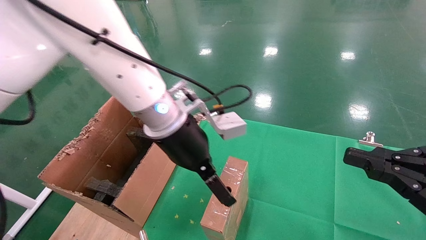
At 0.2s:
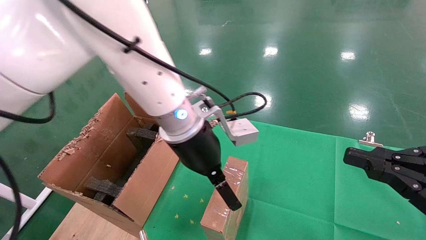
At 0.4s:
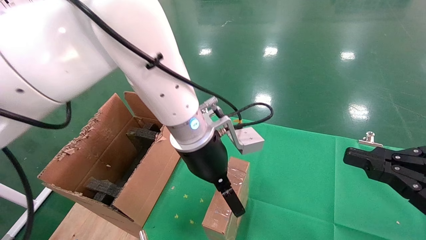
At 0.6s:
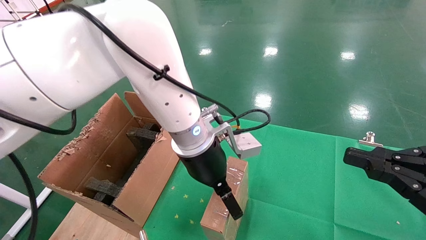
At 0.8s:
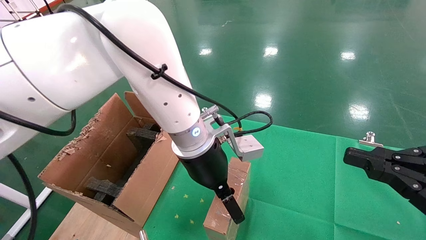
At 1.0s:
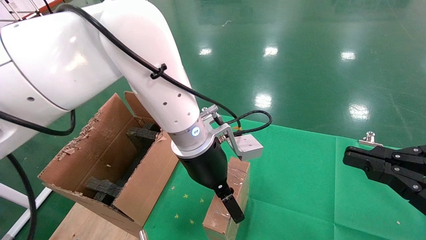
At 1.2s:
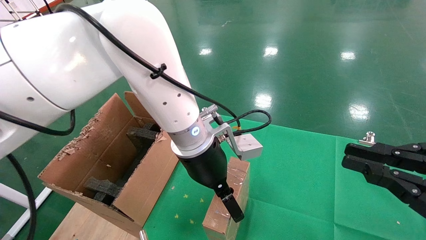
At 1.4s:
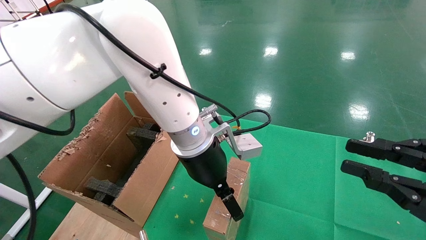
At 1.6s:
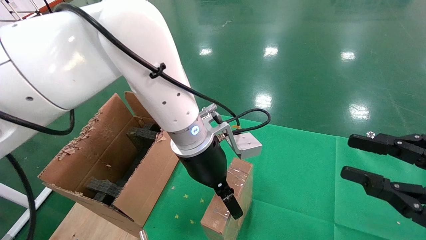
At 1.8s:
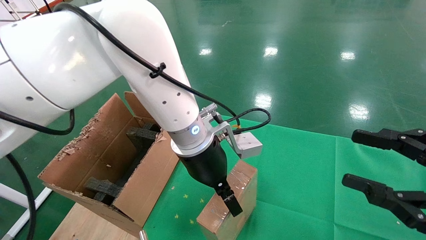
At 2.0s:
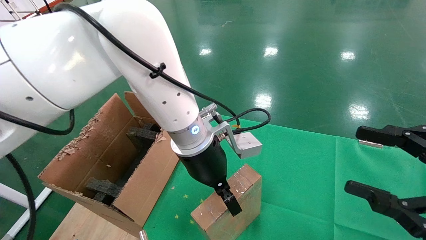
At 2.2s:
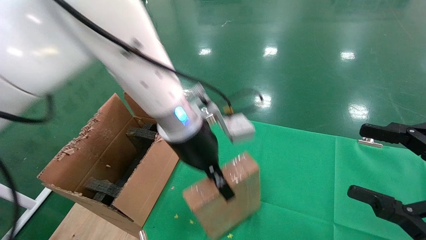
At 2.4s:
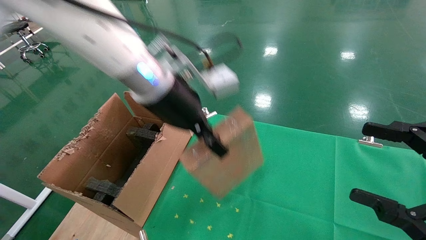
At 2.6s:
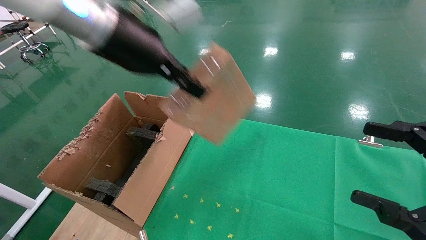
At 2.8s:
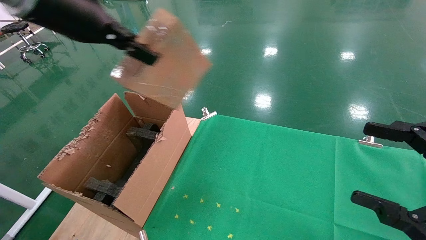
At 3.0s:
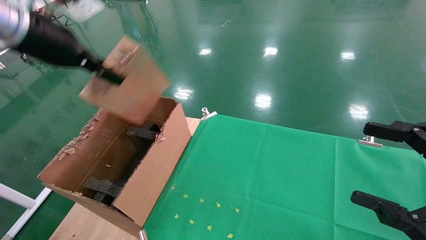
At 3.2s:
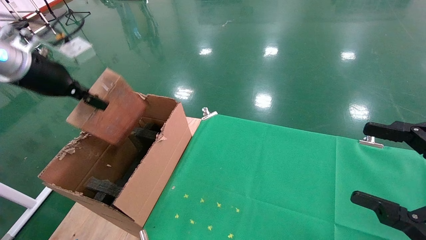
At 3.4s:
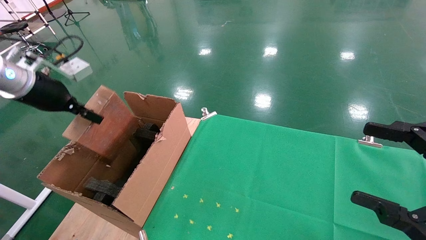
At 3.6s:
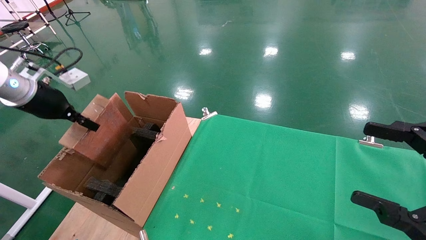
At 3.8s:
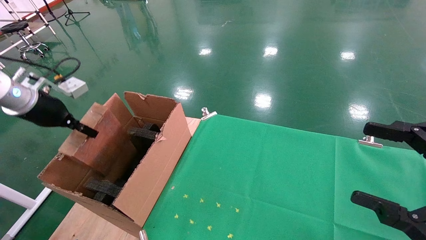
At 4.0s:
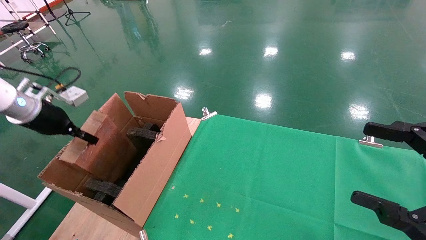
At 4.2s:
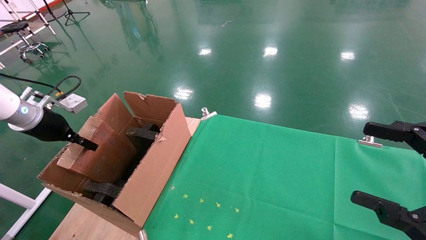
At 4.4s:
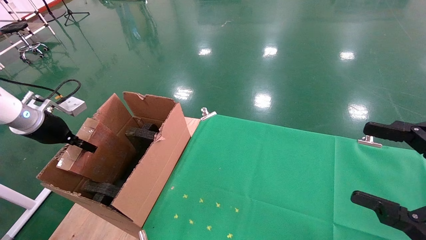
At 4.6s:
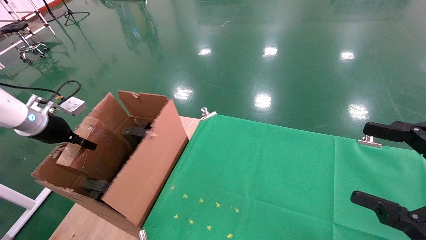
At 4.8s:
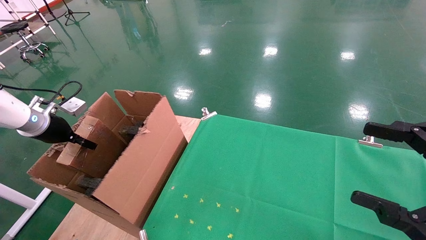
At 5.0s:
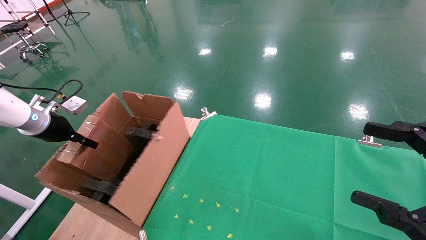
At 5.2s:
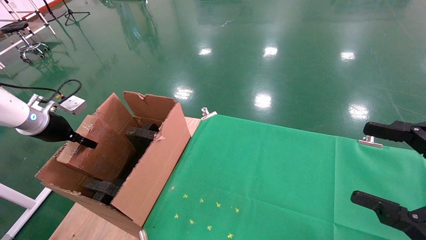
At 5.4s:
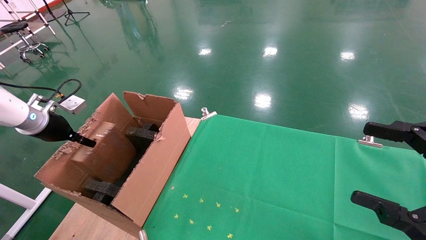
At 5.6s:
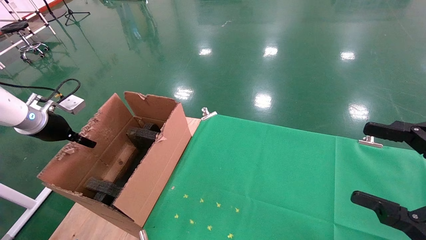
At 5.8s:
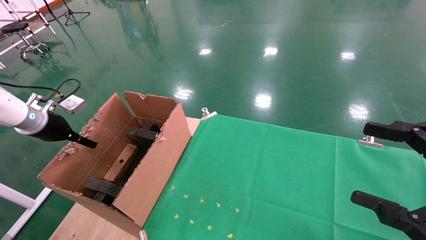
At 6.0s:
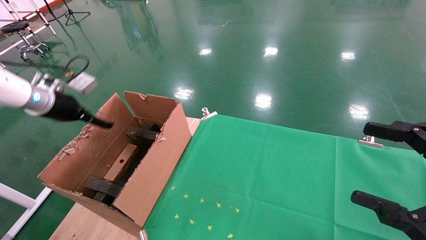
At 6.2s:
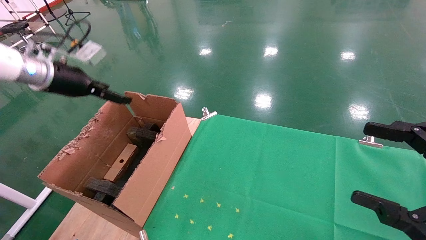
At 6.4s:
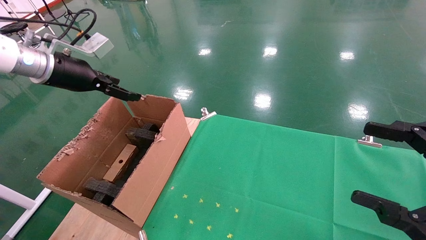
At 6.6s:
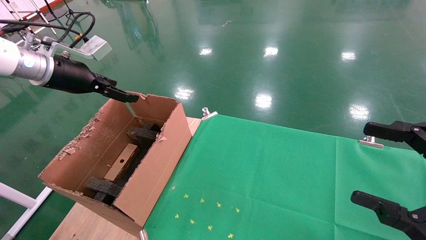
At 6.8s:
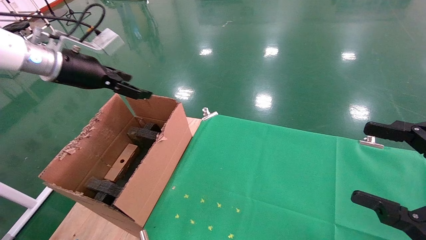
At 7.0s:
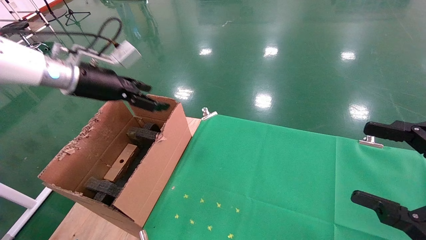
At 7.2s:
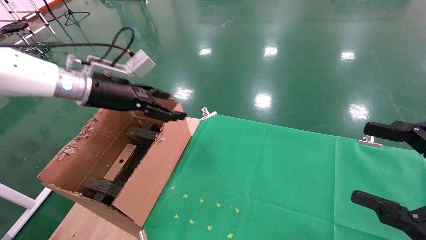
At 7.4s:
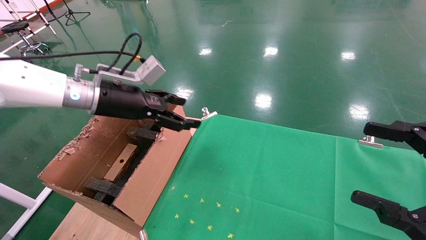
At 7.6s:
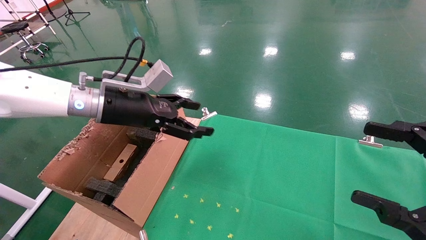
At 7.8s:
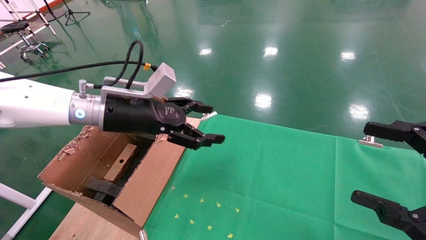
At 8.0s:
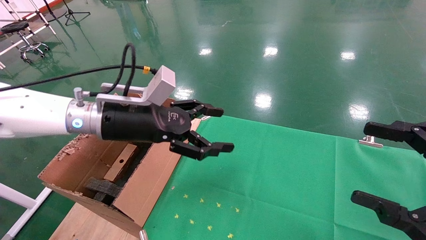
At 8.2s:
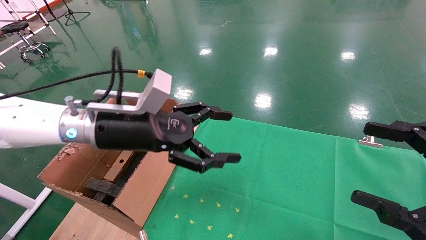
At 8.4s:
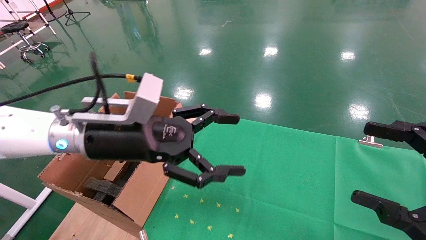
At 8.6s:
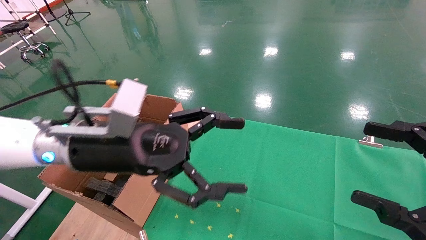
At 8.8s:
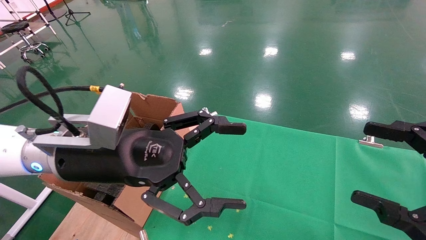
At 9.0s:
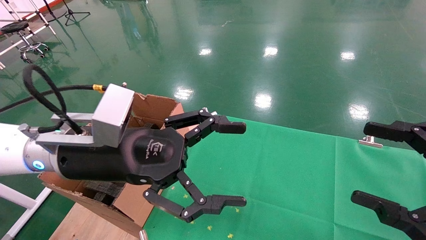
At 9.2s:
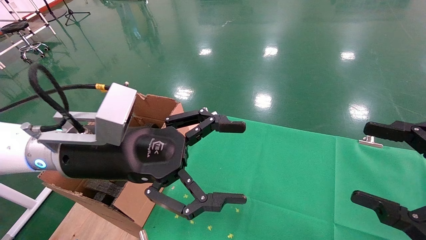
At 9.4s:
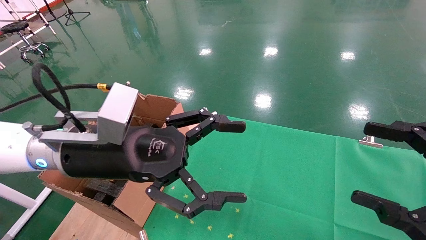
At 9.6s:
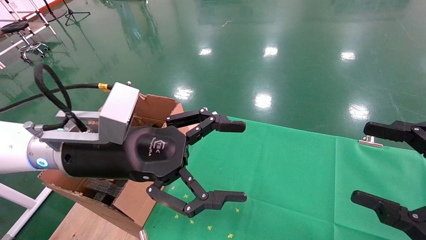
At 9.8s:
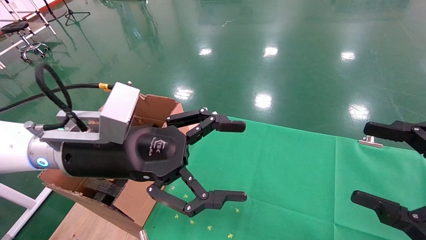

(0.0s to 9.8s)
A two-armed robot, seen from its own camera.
Task of the whole recording: using a robotic arm to pick up a cardboard box and palace it the carton.
Step, 0.0s - 2.0s: Pick up the mouse and the power cord paper box.
Step, 2.2s - 5.6s: Place the mouse and the power cord paper box into the container.
0.0s - 1.4s: The left gripper ends up roughly 5 cm from where it was.
1.4s - 2.8s: The right gripper opens its fingers. The left gripper travels upward and to the left by about 25 cm, and closes its fingers.
2.8s - 4.2s: The left gripper shifts about 30 cm to the left and downward.
4.2s - 5.6s: The left gripper opens its fingers.
5.6s - 7.0s: The left gripper is displaced to the right and upward by about 20 cm, and opens its fingers.
7.0s - 8.4s: The left gripper moves to the right, backward and downward, approximately 20 cm.
8.4s - 9.8s: The grippers make only small movements.

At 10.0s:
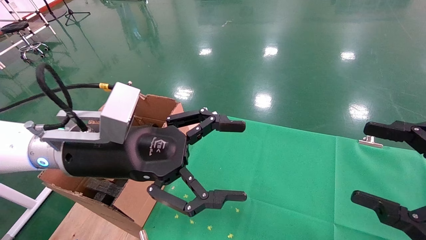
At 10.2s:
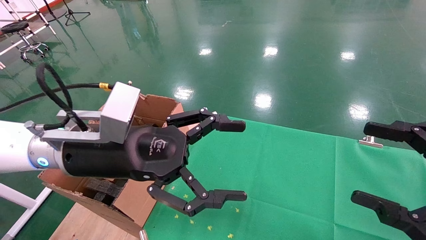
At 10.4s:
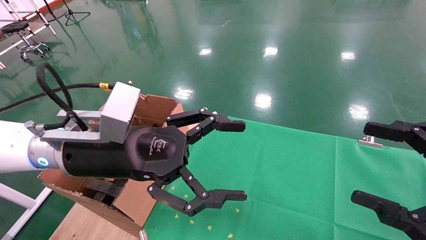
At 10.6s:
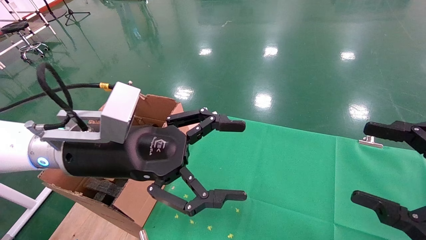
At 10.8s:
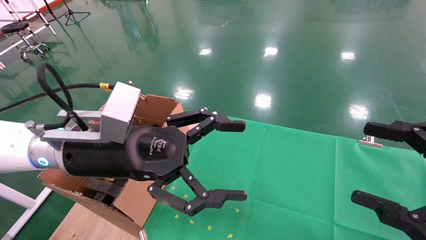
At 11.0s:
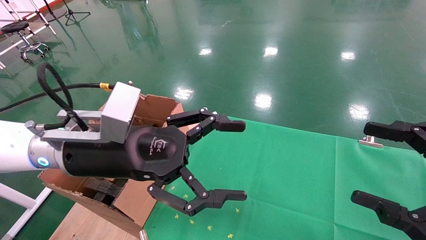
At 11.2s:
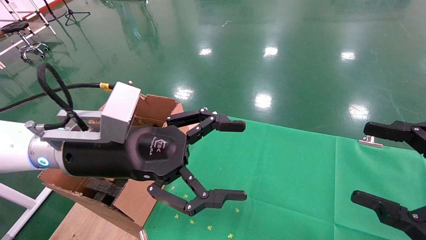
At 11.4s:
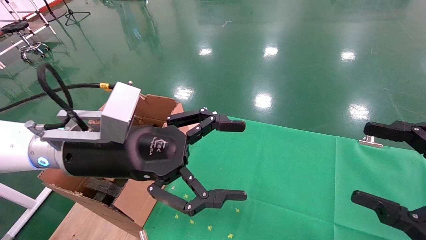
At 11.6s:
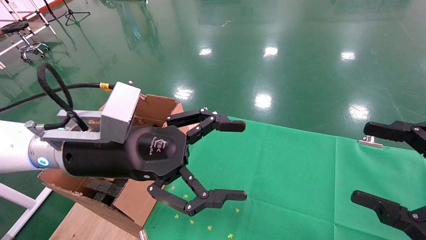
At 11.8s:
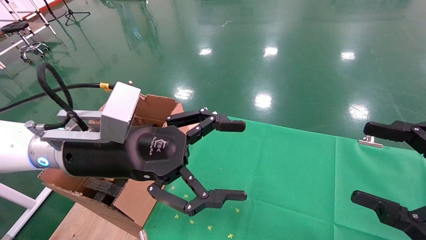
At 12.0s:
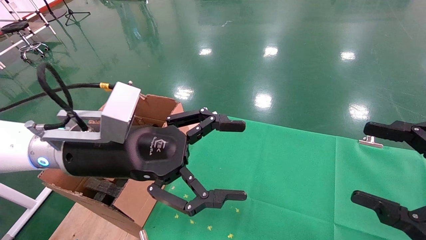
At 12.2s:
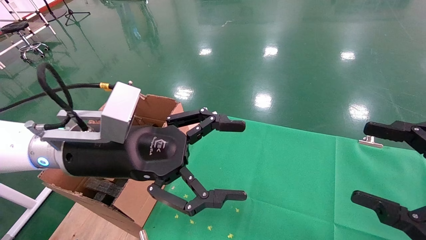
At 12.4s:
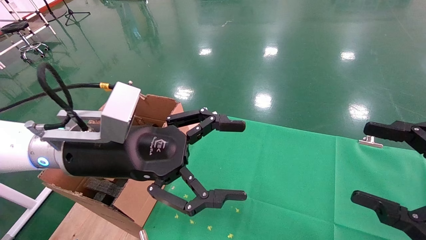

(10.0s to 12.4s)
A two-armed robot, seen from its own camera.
Task of the whole recording: using a robotic arm to pick up a cardboard box and palace it the carton.
10.0s - 12.4s: The two grippers keep their place.
